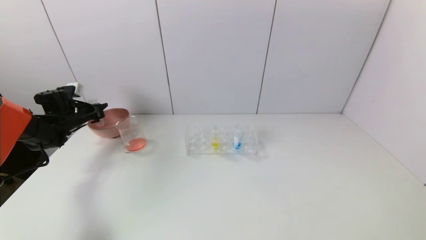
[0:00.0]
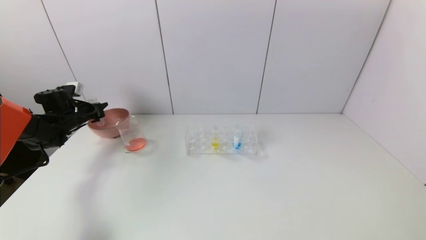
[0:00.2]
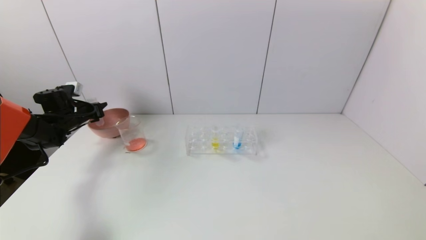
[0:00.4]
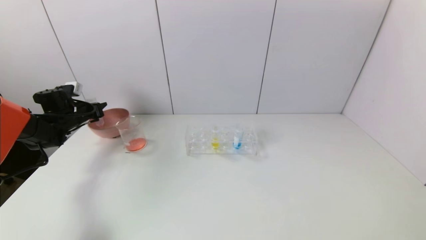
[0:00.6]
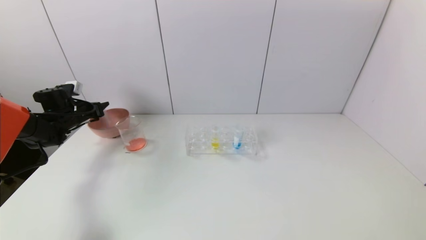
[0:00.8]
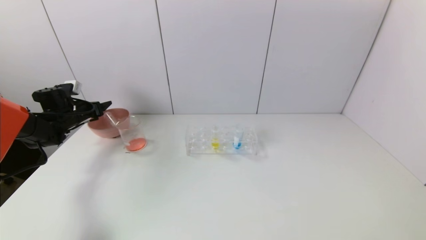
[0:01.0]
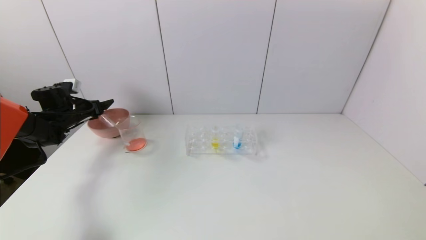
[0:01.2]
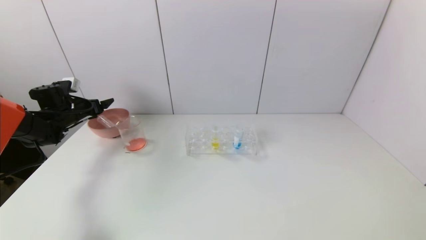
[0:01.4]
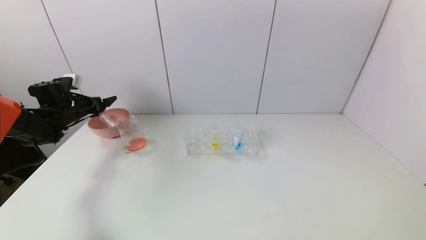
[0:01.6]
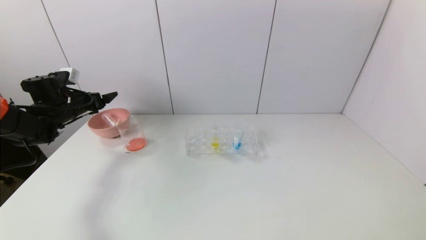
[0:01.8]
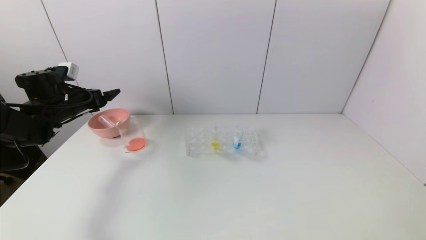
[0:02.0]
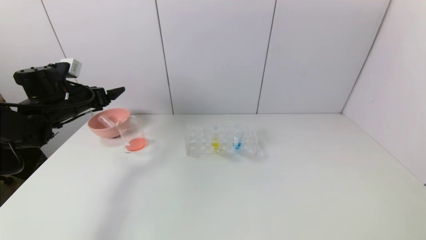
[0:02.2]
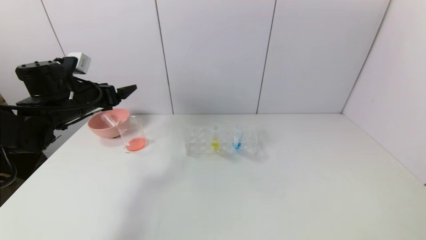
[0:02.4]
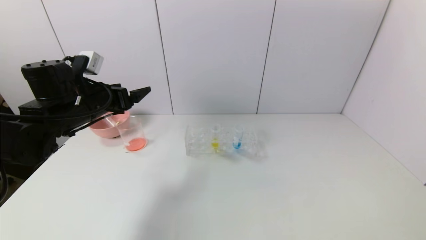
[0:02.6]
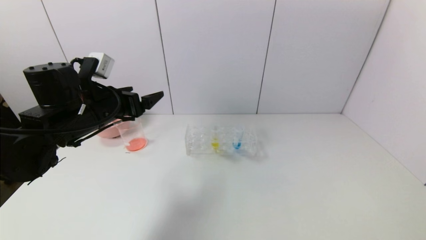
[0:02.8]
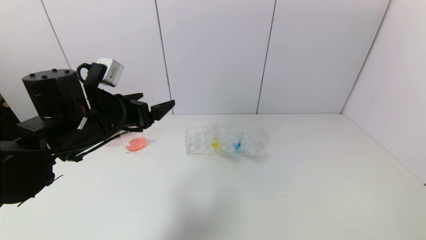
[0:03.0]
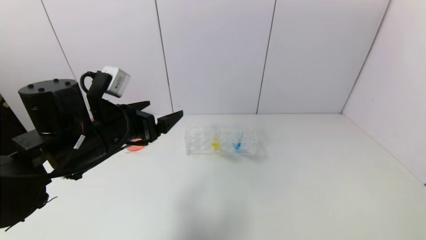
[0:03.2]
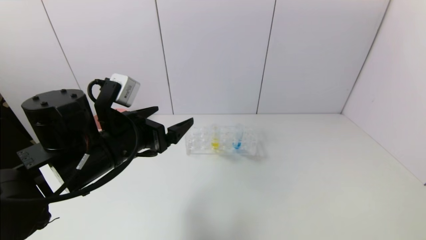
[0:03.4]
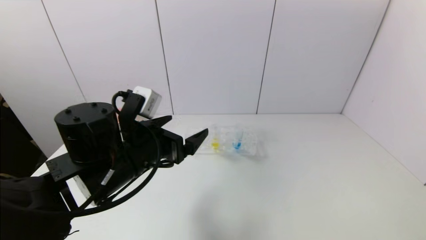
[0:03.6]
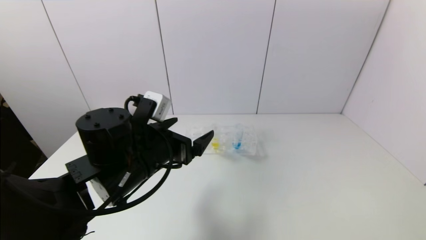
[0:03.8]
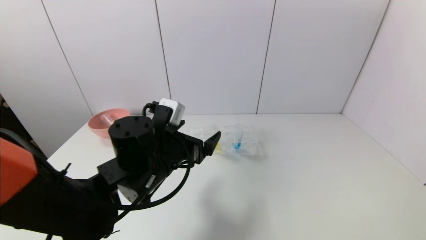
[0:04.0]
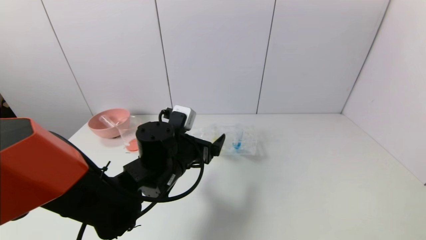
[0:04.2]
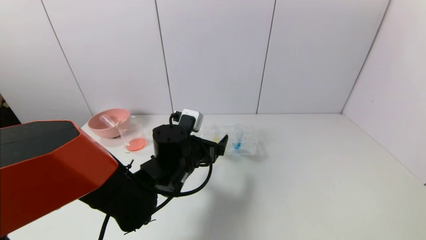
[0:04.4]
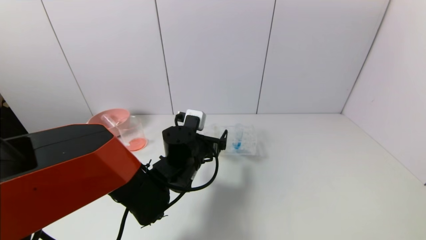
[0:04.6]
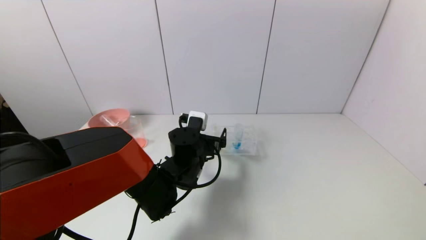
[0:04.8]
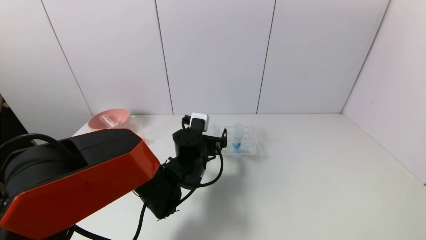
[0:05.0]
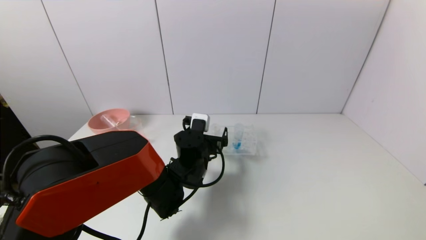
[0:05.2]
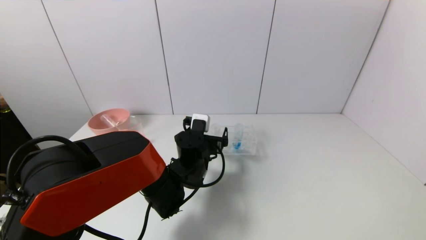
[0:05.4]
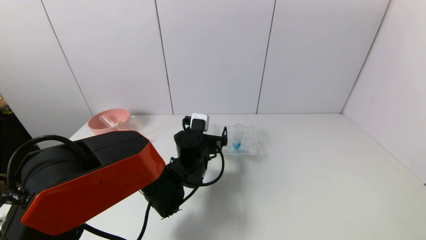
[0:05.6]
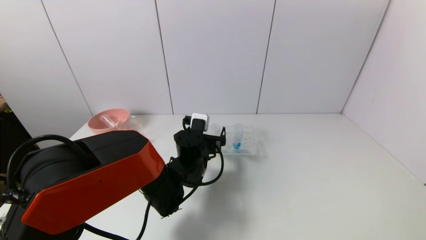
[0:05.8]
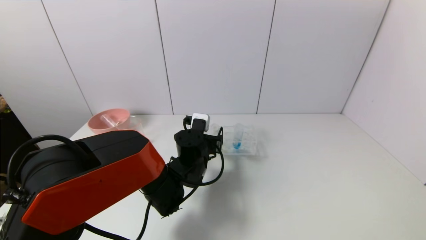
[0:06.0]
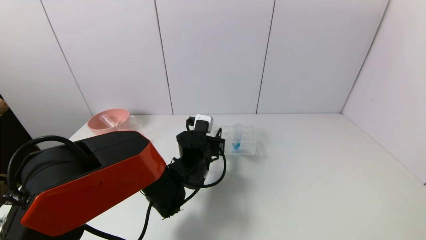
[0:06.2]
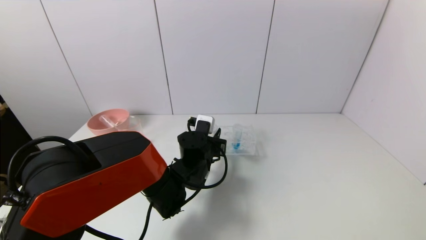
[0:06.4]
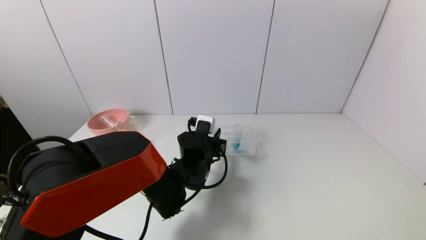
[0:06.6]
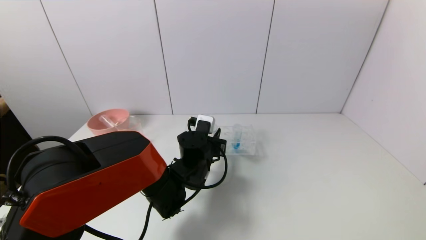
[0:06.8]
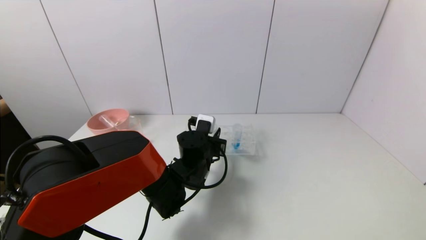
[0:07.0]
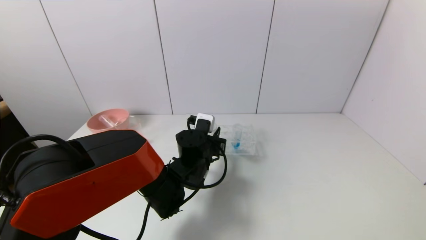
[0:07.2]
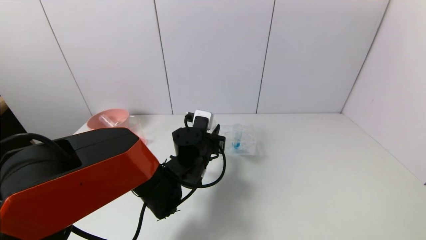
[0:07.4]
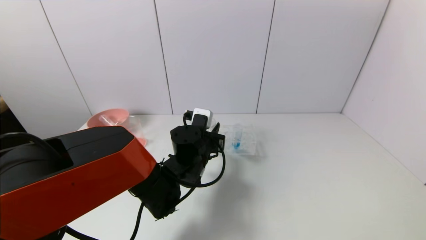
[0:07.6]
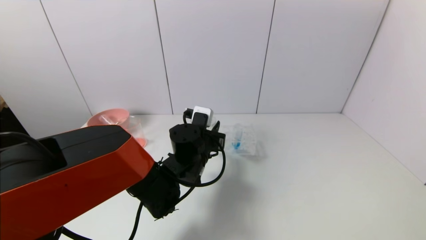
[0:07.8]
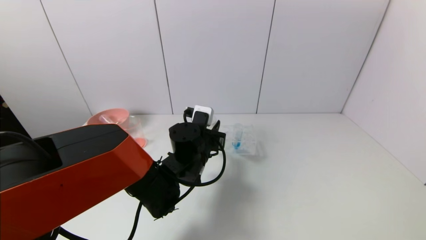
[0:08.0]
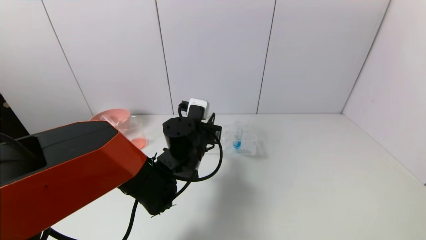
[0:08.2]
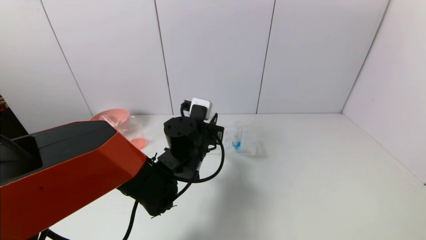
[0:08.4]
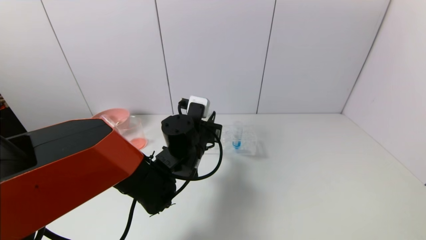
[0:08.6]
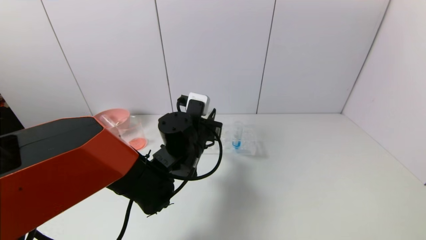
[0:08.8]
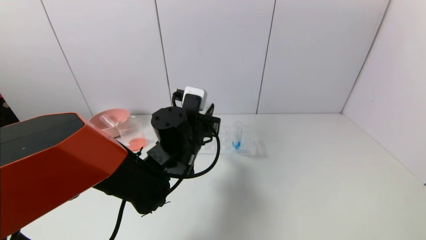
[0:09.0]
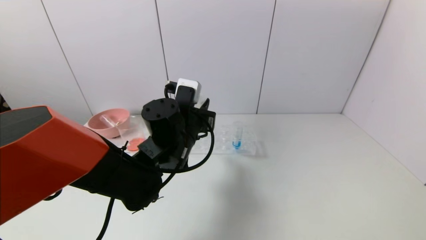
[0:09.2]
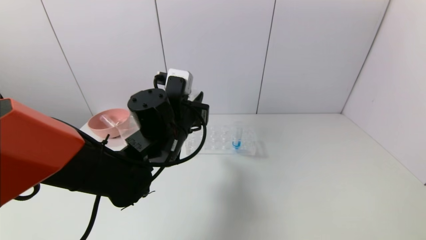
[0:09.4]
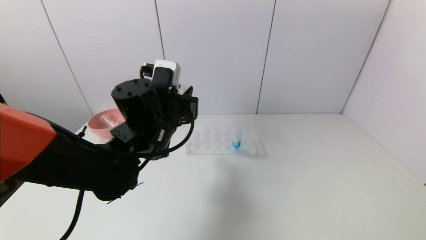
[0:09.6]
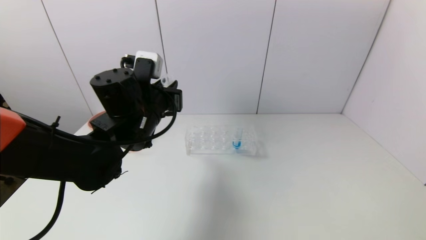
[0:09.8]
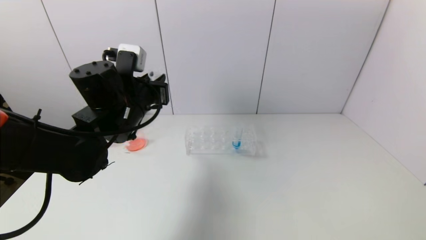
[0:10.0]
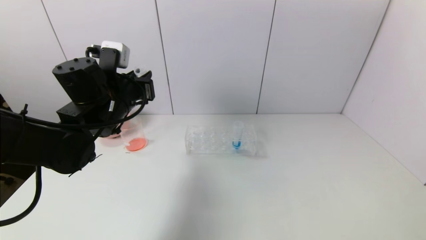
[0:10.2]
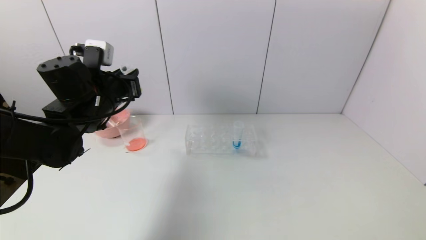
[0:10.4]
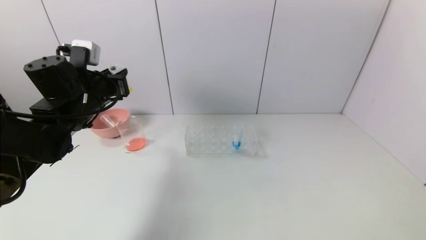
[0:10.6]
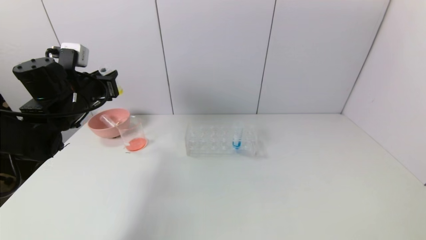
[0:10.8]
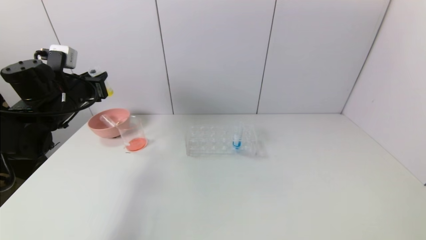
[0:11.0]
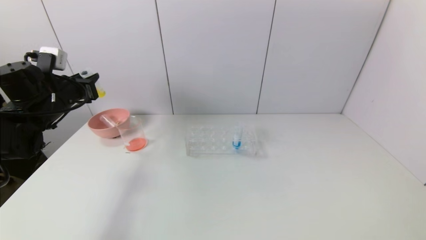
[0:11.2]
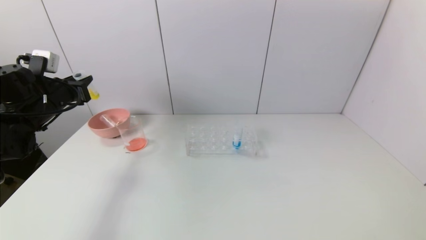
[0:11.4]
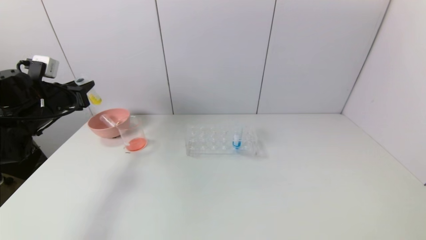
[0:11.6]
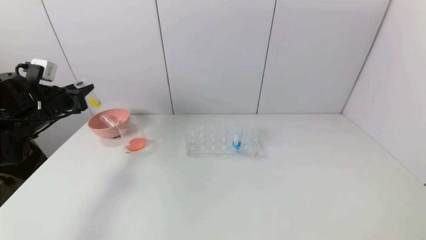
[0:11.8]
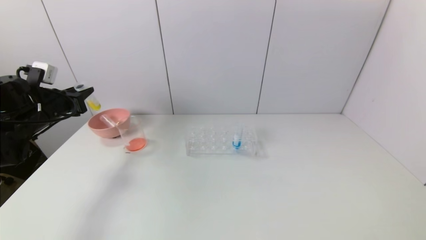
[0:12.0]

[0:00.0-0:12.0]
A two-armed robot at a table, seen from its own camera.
Task of the whole recording: pick up the test tube with yellow pigment and the test tube with red pigment by grippers and pour them into the beaker.
Step, 0:01.2 to 0:06.6: Grasp the yellow reagent with the left gripper.
0:00.0 to 0:01.6: The left gripper opens up.
0:01.6 to 0:03.0: The left gripper goes approximately 30 cm to the right and backward.
0:03.0 to 0:04.4: The left gripper shifts about 15 cm to the right and downward.
0:04.4 to 0:06.0: The left gripper moves roughly 5 cm, and closes up.
0:06.0 to 0:07.6: The left gripper closes.
0:07.6 to 0:09.0: The left gripper travels upward by about 5 cm.
0:09.0 to 0:10.4: The left gripper goes about 20 cm to the left and upward.
0:10.4 to 0:12.0: The left gripper heads to the left, covering some 15 cm.

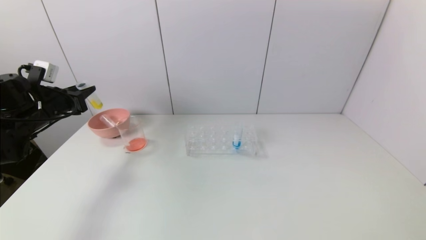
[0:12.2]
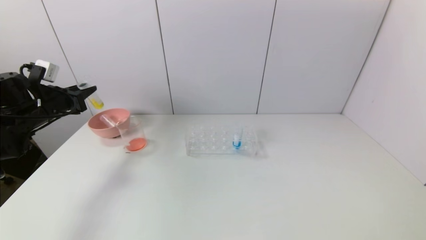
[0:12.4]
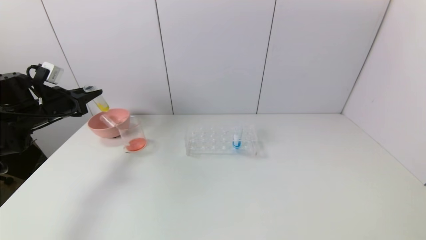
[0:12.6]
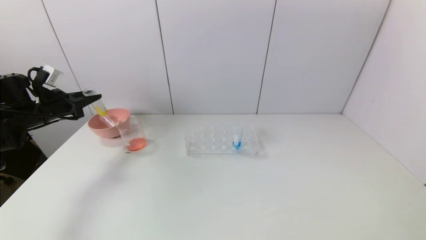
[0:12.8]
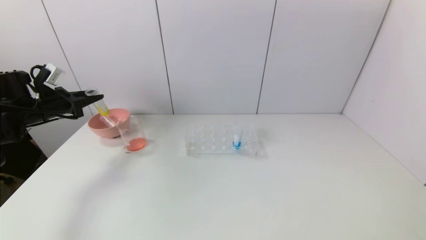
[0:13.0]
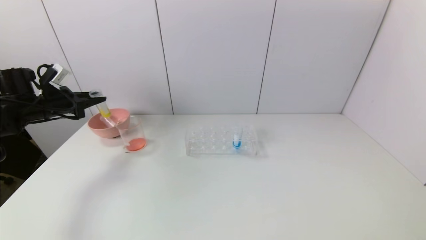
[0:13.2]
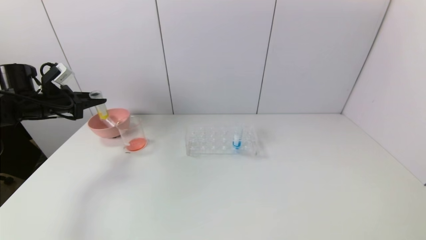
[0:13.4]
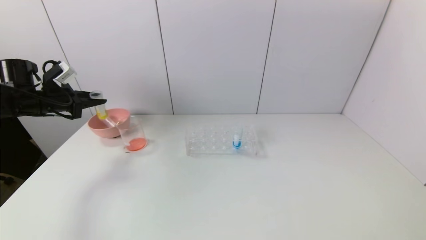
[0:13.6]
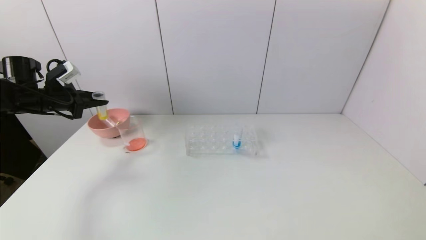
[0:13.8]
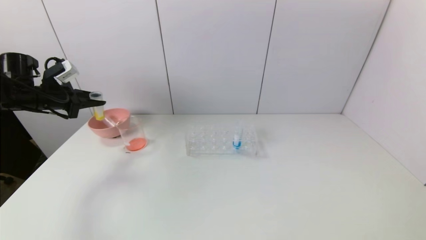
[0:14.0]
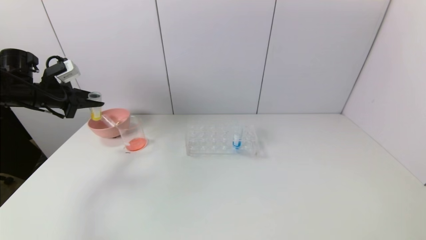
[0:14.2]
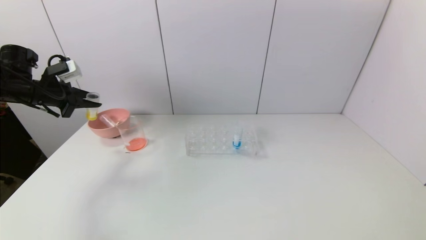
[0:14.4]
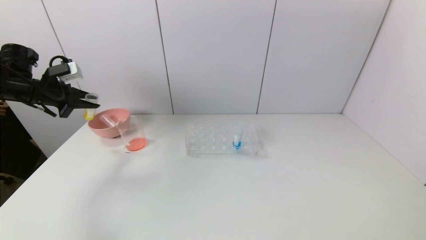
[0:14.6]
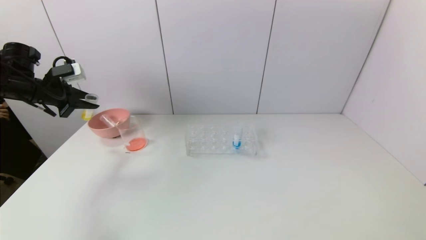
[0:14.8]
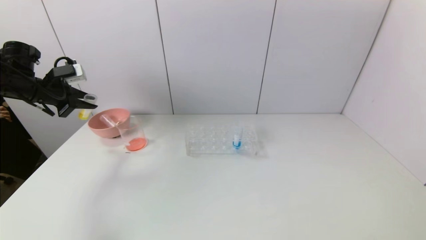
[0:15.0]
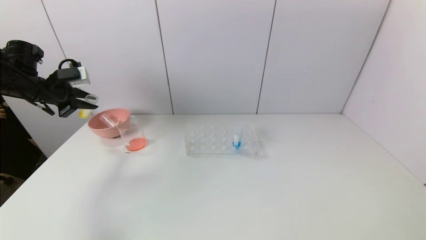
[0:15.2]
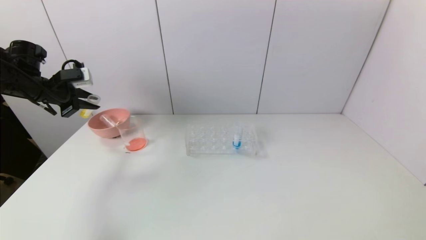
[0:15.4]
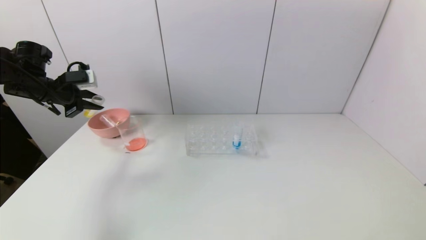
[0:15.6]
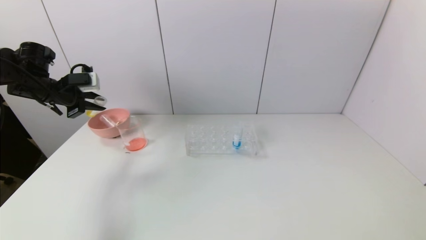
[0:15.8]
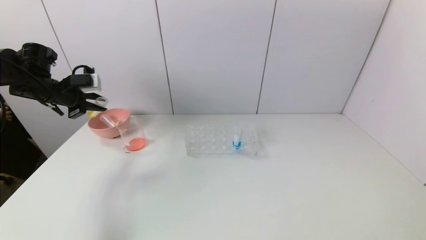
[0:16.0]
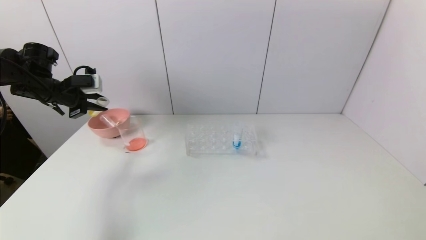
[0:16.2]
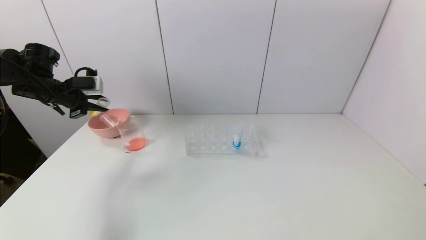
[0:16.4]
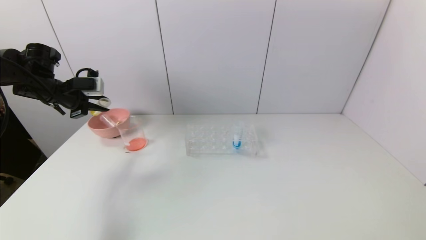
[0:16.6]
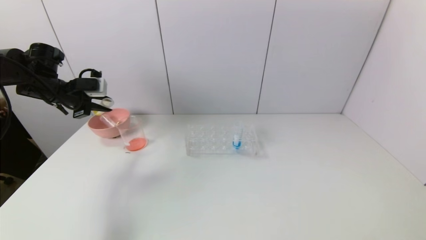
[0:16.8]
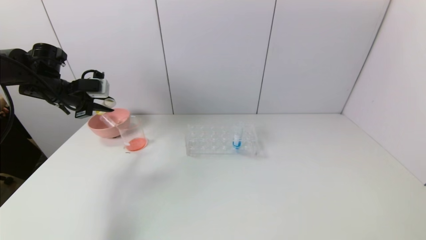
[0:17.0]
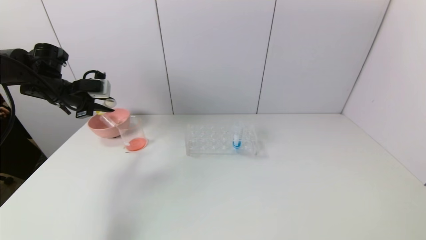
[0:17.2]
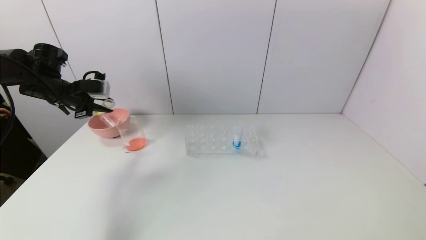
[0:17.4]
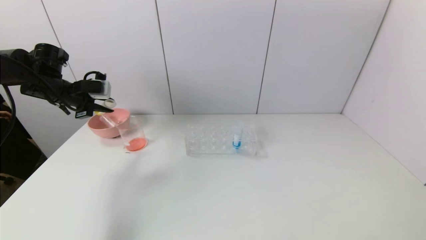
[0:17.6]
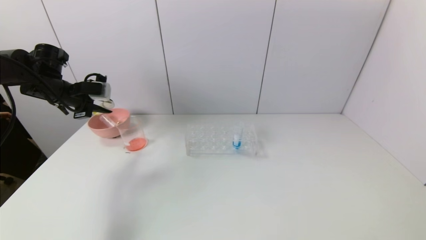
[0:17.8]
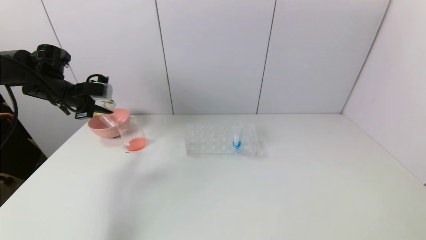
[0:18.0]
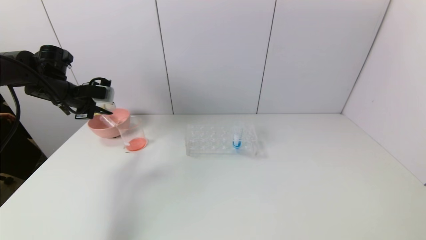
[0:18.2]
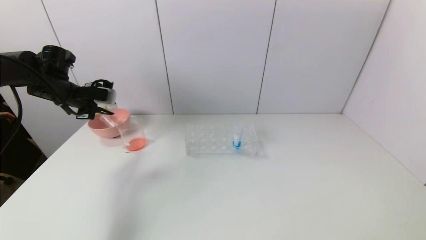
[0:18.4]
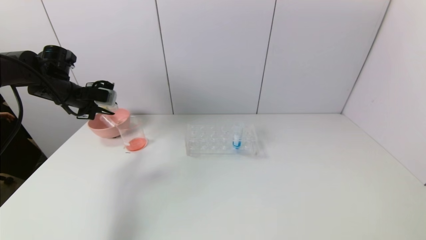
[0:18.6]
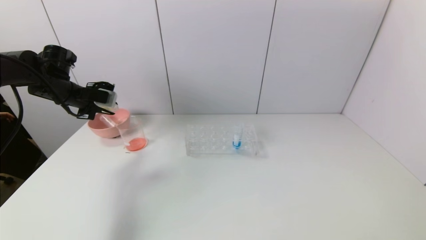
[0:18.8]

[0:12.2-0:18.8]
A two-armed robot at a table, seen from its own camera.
Task of the whole recording: pick up the test tube with yellow pigment and the test tube with red pigment by grippers and pour them into the beaker.
0:12.2 to 0:13.8: The left gripper moves some 5 cm.
0:15.4 to 0:17.2: The grippers stay close to where they were, moving slightly.
0:17.2 to 0:18.8: The grippers move only a little.
